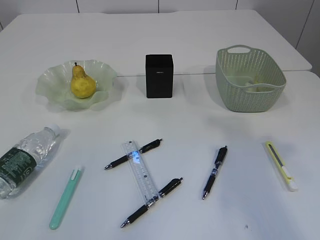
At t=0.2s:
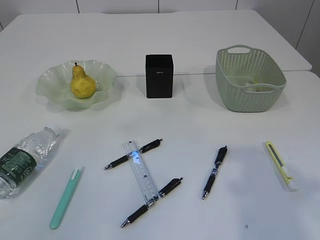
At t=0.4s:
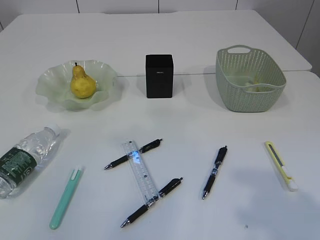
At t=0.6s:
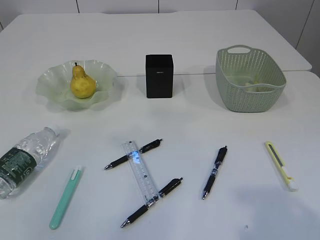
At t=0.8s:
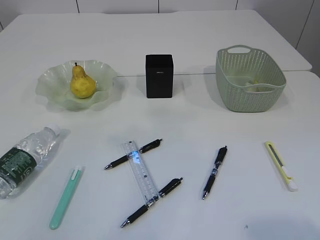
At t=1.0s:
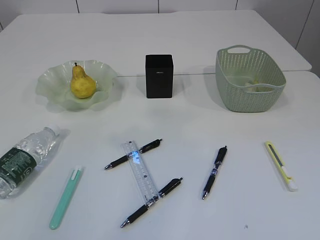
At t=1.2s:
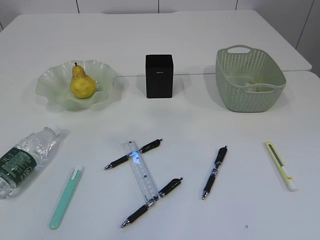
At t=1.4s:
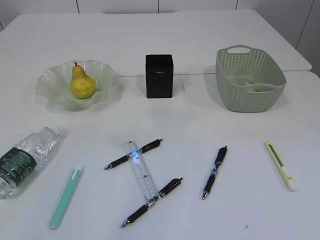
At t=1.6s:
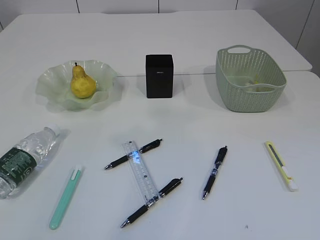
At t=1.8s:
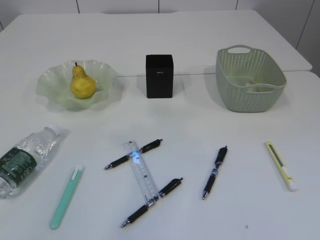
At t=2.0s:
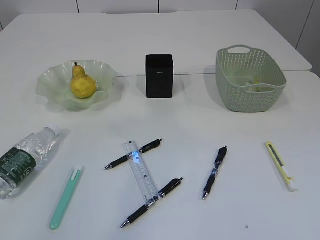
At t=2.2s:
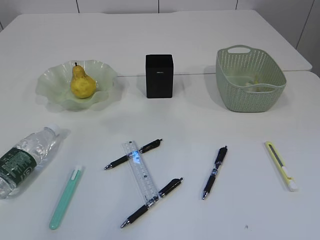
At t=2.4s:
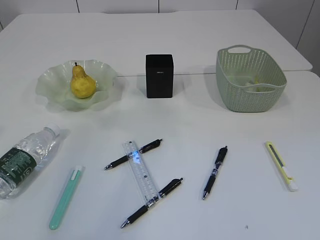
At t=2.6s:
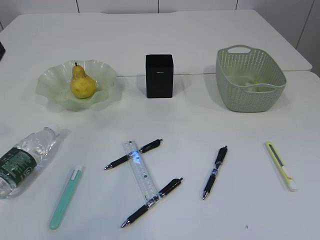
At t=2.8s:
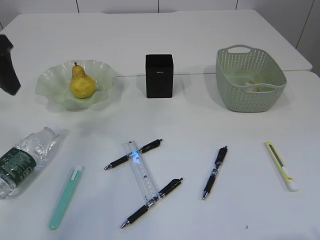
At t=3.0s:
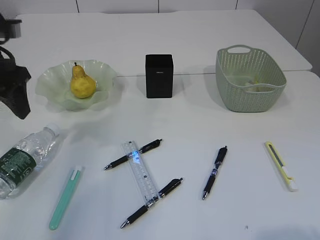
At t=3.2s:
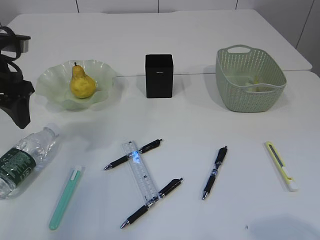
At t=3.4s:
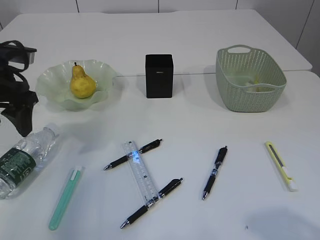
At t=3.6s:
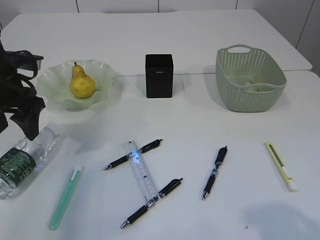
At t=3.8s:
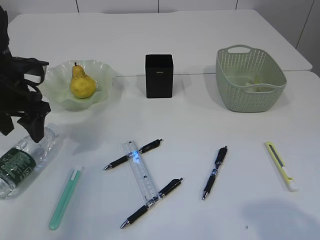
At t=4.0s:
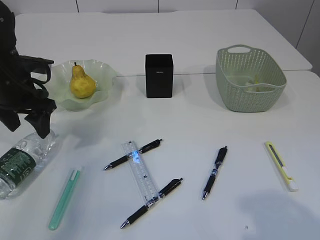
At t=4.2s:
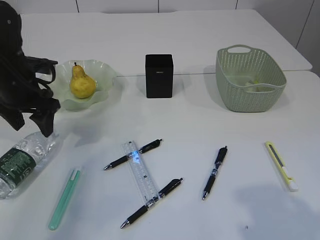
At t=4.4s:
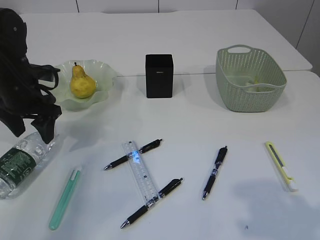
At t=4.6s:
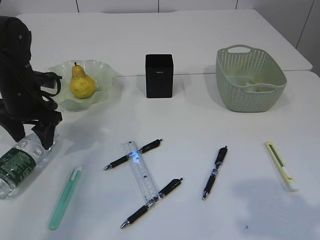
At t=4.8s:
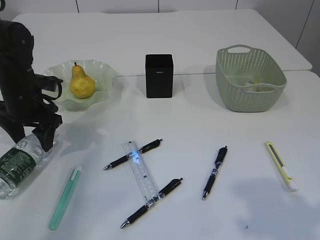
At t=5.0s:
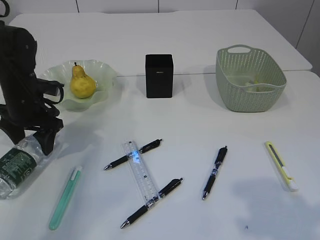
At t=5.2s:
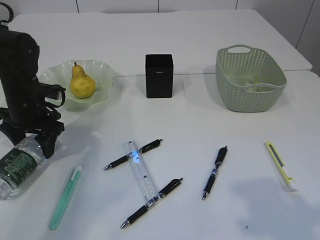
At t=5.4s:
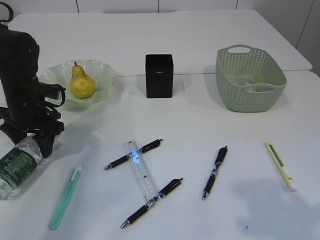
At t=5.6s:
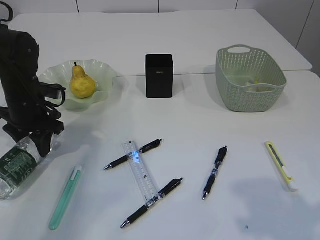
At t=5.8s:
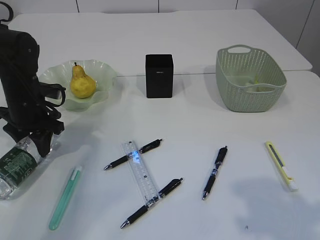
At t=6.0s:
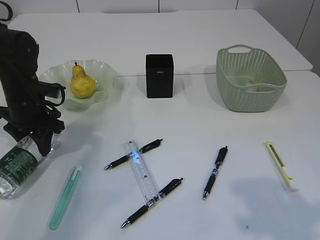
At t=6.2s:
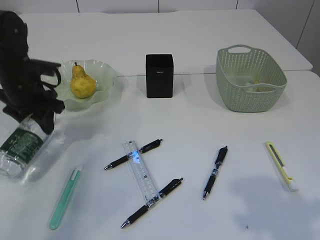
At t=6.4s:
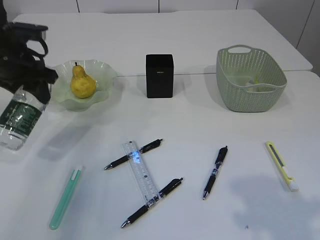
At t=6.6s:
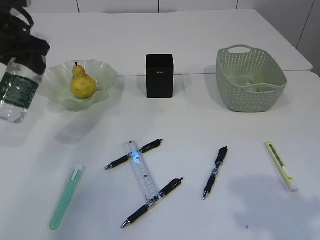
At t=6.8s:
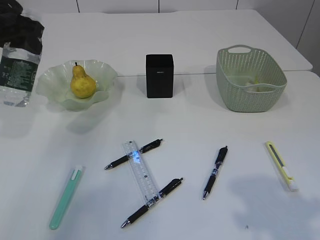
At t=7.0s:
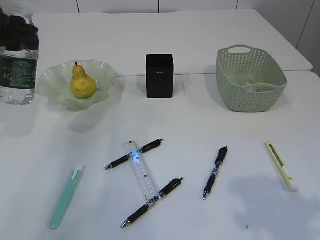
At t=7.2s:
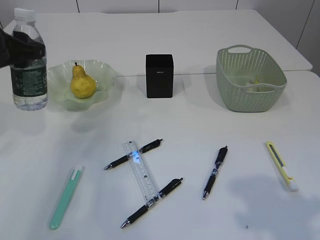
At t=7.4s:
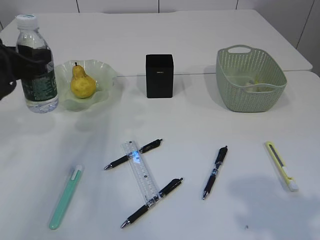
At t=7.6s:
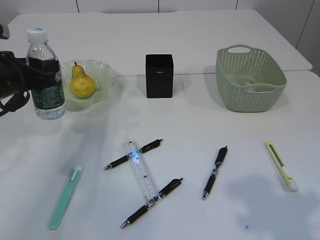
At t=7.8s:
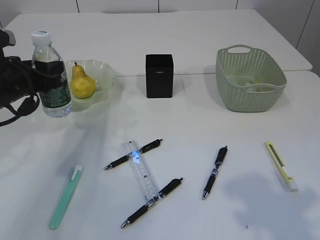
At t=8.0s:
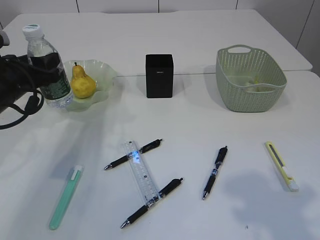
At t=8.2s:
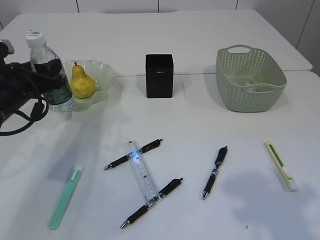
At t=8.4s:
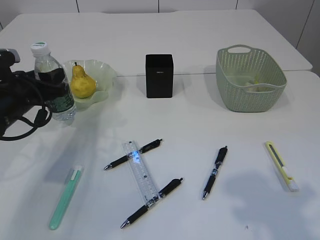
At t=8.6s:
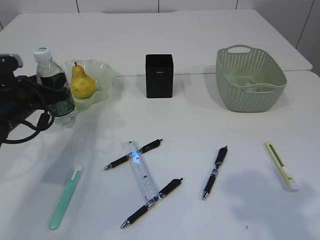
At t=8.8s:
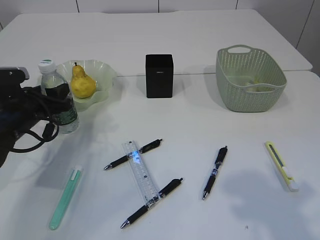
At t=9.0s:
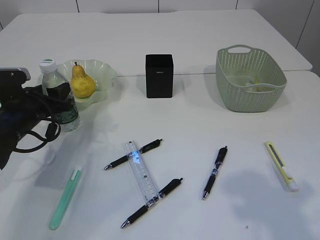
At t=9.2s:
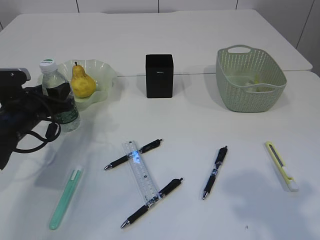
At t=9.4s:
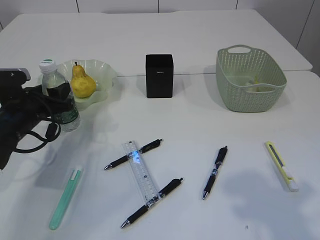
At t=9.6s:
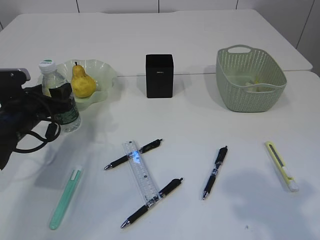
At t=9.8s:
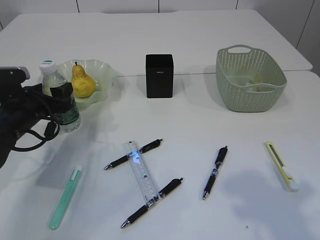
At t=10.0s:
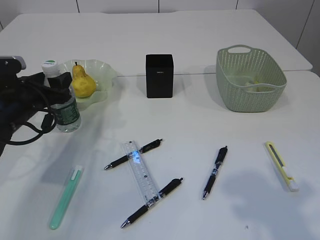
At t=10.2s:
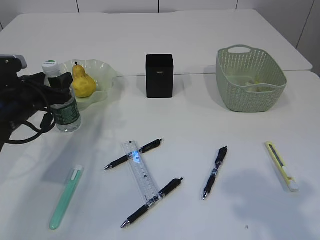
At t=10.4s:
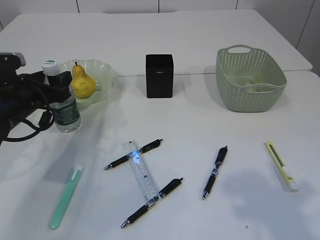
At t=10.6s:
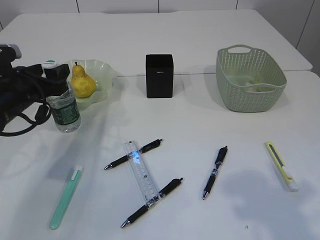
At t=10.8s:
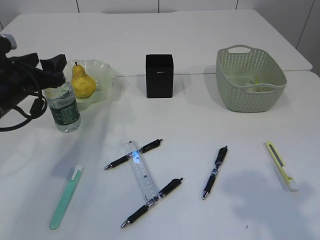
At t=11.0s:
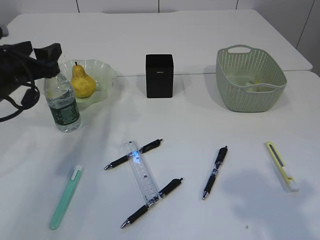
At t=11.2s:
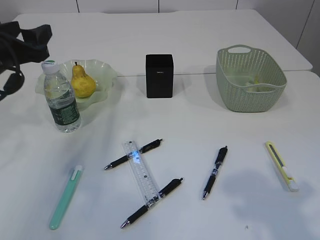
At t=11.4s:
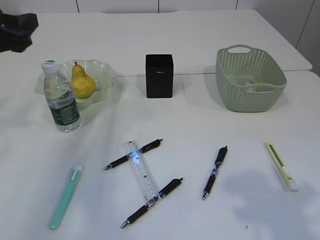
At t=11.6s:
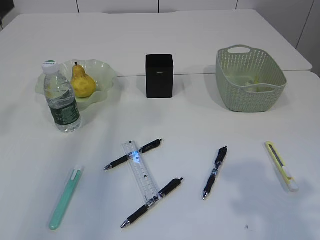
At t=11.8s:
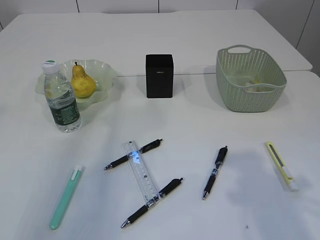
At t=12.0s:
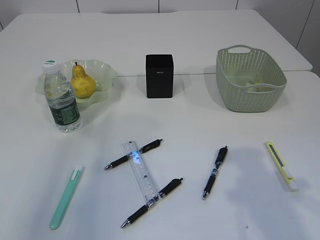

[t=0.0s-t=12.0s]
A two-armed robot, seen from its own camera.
Step, t=0.0s to t=6.2s: Pick up the bottle with the left arm.
Step, t=6.4s to t=11.2s: Place the bottle.
t=1.6s to t=3.0s: The left gripper travels downward and forward by some 25 cm.
t=3.0s to t=4.4s: The left gripper travels downward and forward by some 15 cm.
t=4.4s to t=6.0s: The left gripper closes its fingers.
t=6.0s to t=7.6s: The left gripper goes roughly 10 cm upward and backward.
t=7.6s to t=9.0s: The left gripper travels downward by about 10 cm.
t=9.0s to t=10.4s: The left gripper opens its fingers.
t=10.4s to t=12.0s: The left gripper goes about 25 cm upward and backward.

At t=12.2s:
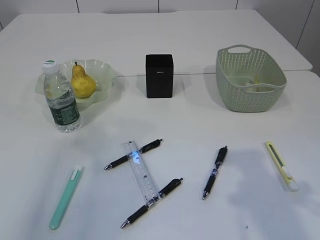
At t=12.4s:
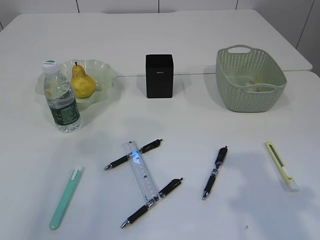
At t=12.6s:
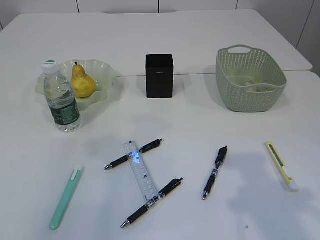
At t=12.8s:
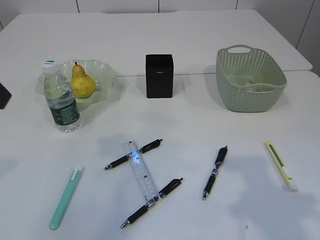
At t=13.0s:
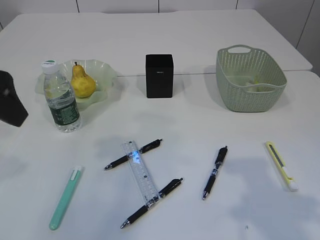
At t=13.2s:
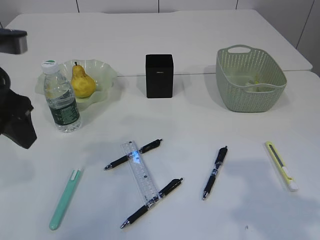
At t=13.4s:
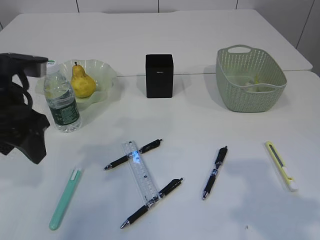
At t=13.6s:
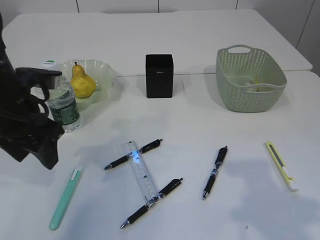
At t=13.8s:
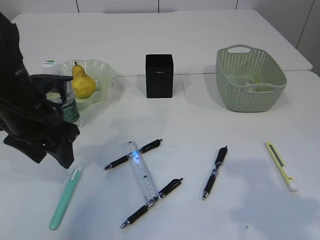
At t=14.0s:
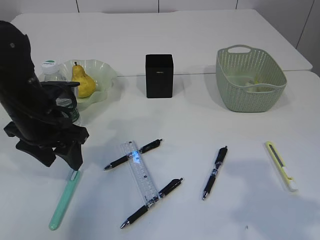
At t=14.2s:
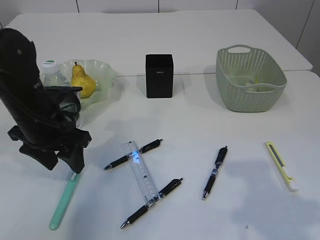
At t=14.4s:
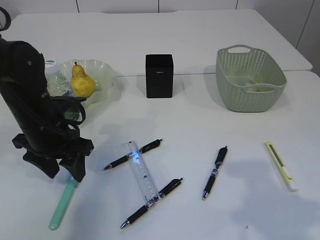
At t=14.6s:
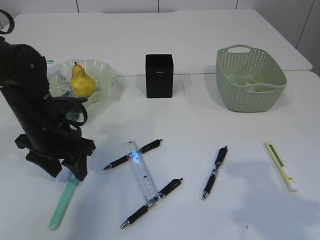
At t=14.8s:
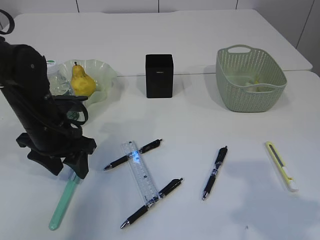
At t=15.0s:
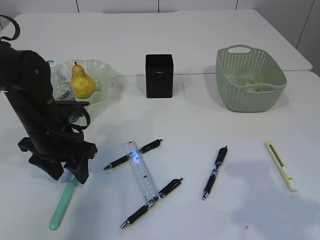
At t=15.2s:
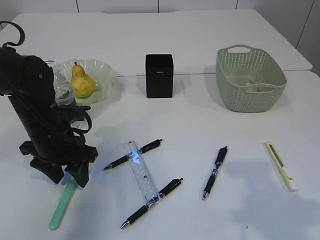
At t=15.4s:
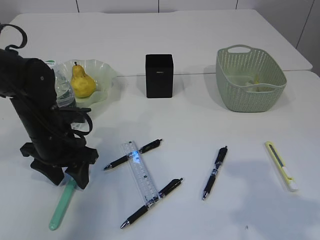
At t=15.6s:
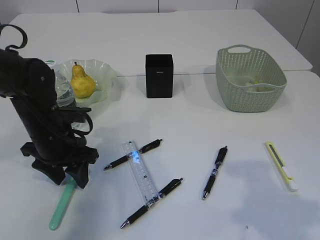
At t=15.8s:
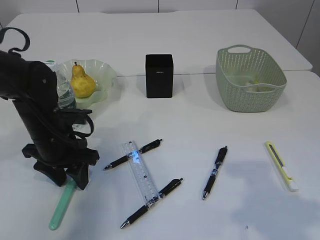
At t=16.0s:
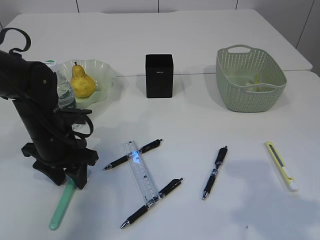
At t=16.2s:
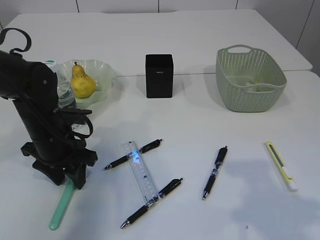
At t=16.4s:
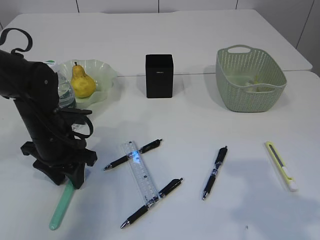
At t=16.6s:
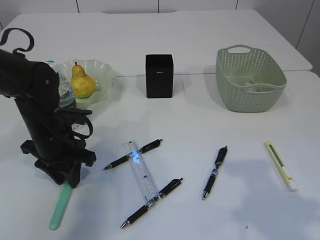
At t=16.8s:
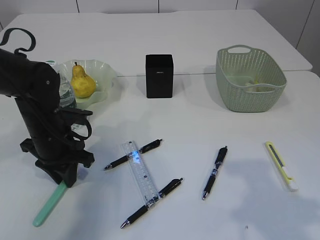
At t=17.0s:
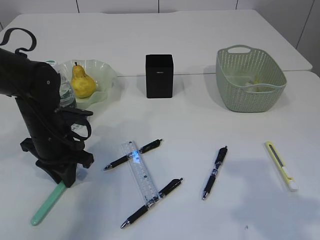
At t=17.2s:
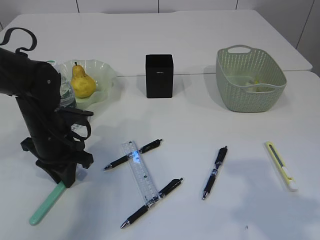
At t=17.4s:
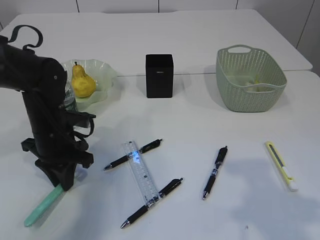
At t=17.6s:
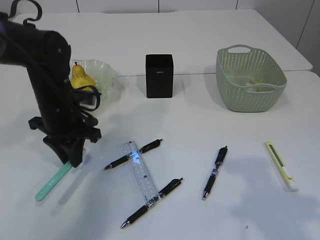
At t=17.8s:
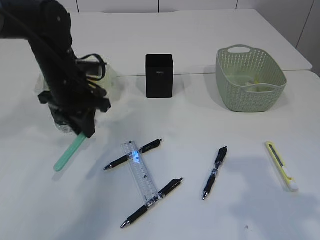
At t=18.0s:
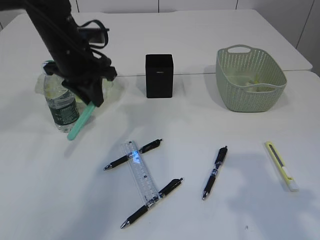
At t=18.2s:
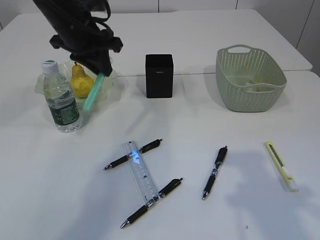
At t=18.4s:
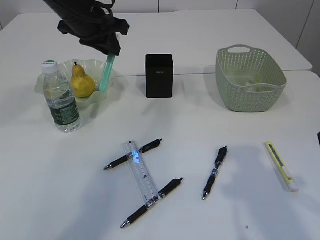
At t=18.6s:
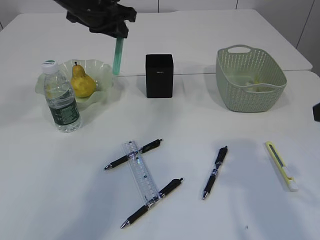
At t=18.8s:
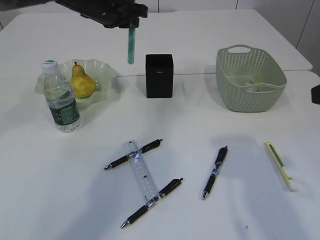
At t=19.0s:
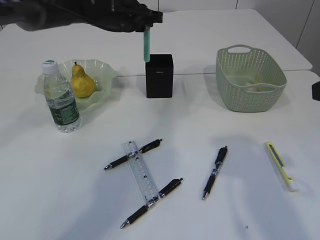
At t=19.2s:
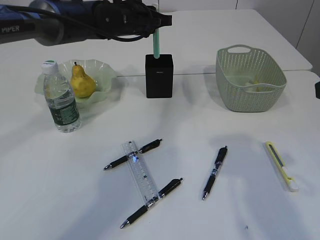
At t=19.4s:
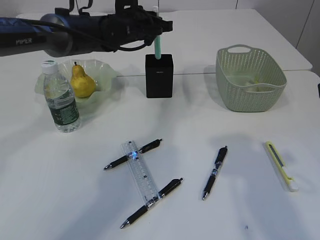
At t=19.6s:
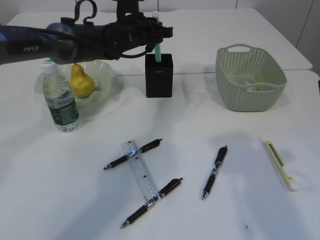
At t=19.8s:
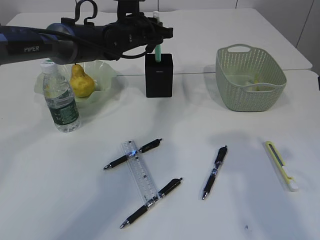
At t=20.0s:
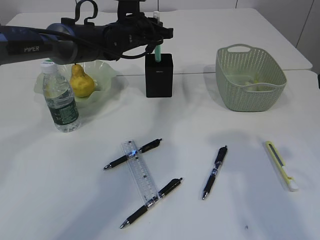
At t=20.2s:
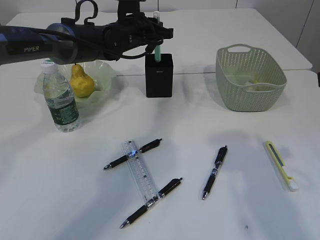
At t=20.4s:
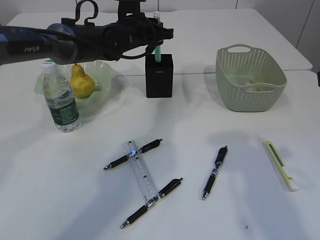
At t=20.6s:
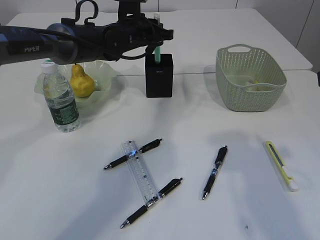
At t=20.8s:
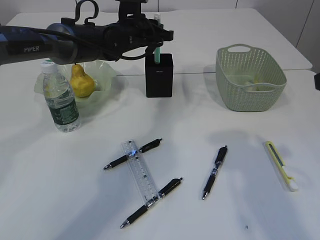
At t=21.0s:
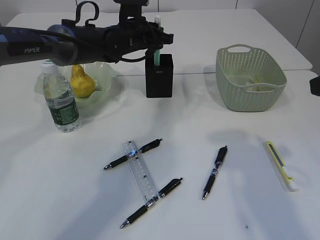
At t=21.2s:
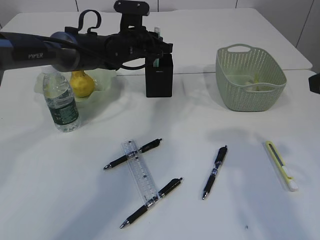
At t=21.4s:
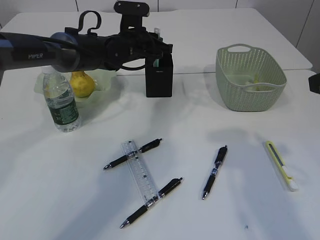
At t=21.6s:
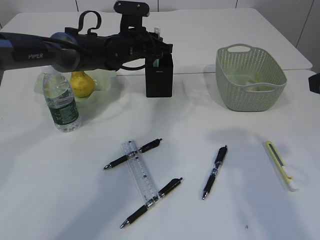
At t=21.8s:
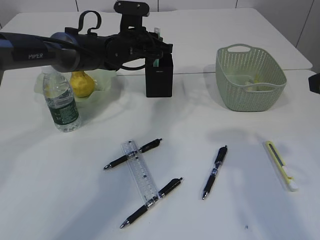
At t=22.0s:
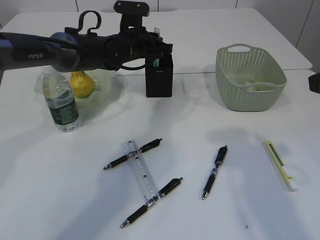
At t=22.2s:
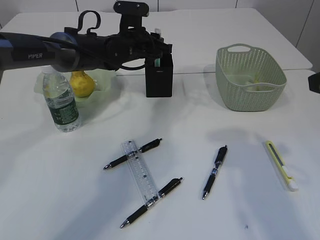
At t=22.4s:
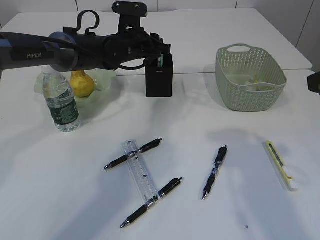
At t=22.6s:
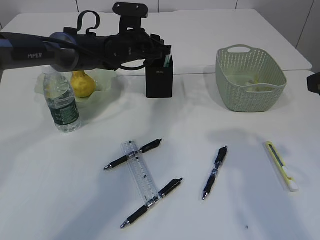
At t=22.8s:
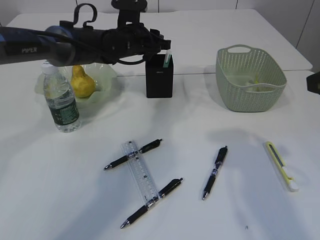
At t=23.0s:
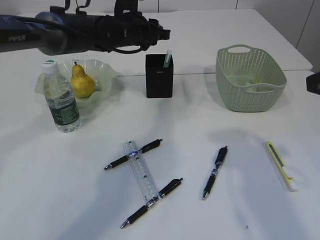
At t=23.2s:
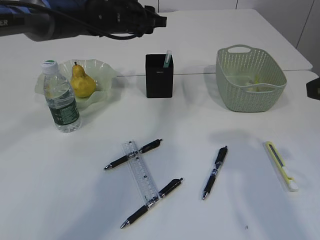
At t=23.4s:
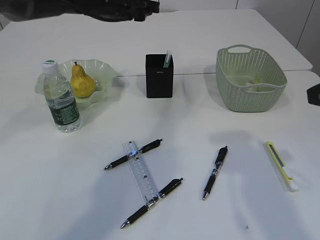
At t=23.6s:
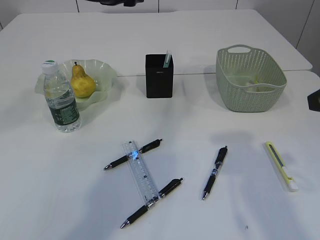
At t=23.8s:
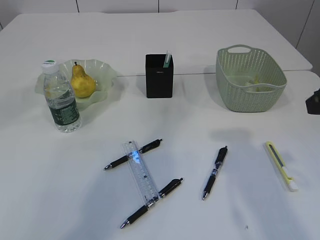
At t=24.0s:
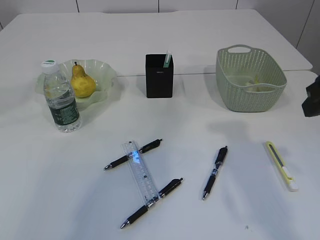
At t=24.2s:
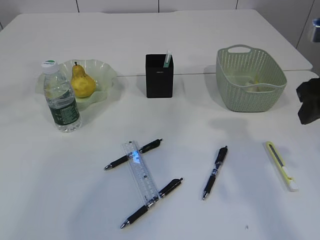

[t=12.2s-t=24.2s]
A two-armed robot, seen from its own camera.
Step, t=12.2s to t=17.6s: pick up the blue knife.
Step, t=17.8s to t=23.0s: Place the blue knife into the pen holder.
t=12.2s to t=13.8s: The left gripper heads downward, forward and to the right, covering roughly 20 cm.
t=13.8s to t=15.2s: The left gripper shifts some 10 cm downward.
t=15.2s to t=16.6s: The left gripper closes.
t=16.6s to t=18.2s: The left gripper travels upward and forward by roughly 20 cm.
t=18.2s to t=19.8s: The left gripper heads to the right, forward and downward, covering roughly 15 cm.
t=19.8s to t=21.2s: The grippers stay close to where they were, moving slightly.
t=21.2s to t=22.6s: The left gripper opens its fingers.
t=22.6s to t=24.2s: The left gripper goes about 25 cm upward, backward and to the left.
